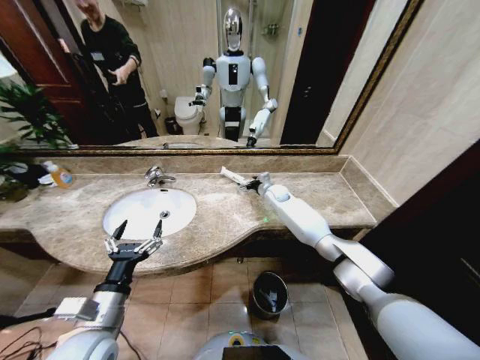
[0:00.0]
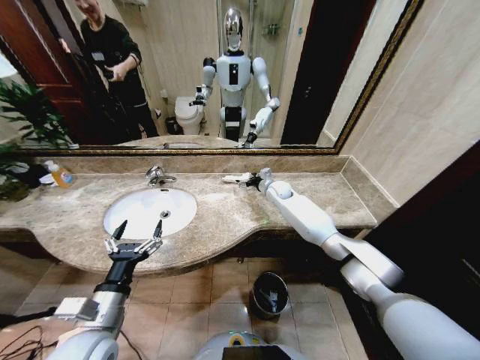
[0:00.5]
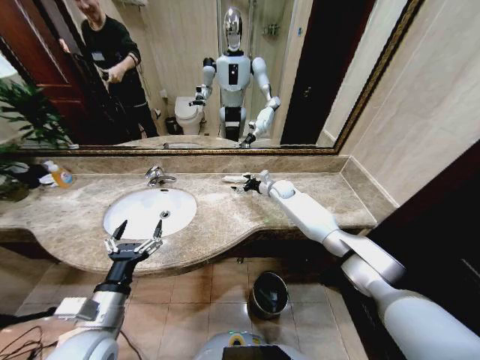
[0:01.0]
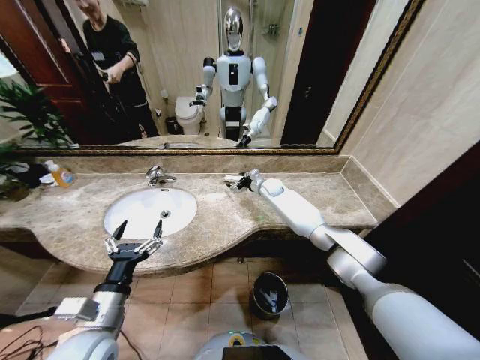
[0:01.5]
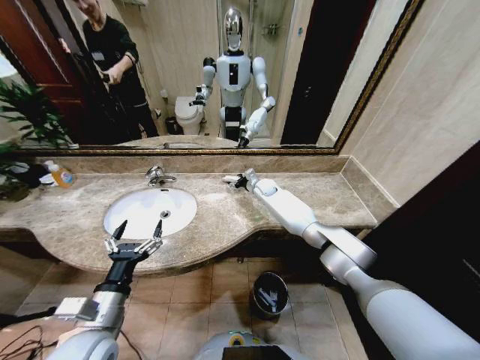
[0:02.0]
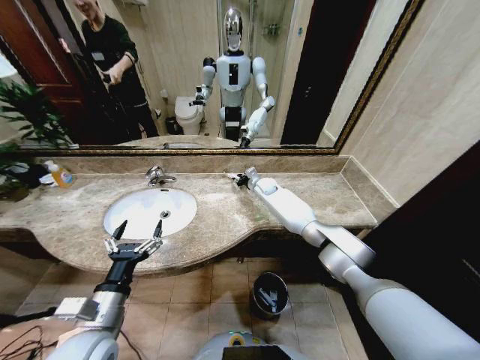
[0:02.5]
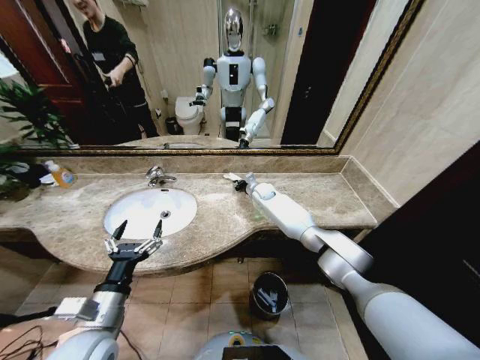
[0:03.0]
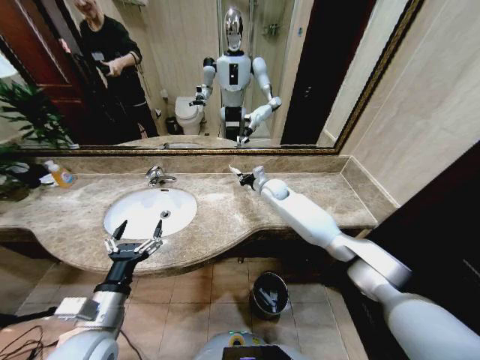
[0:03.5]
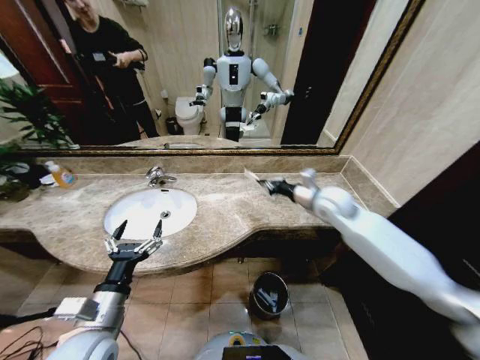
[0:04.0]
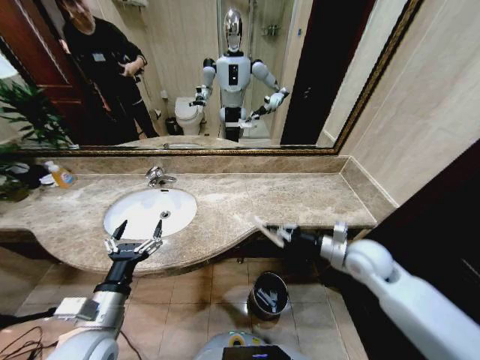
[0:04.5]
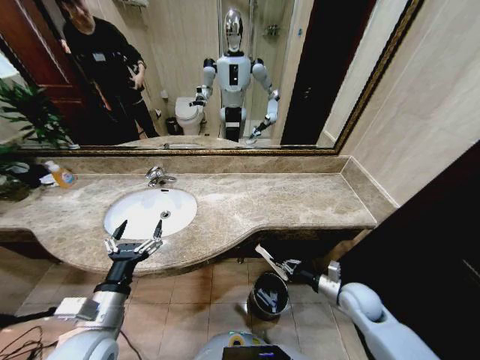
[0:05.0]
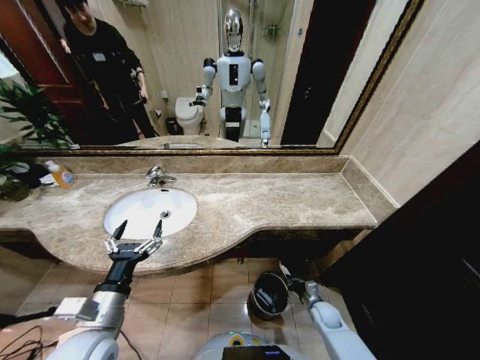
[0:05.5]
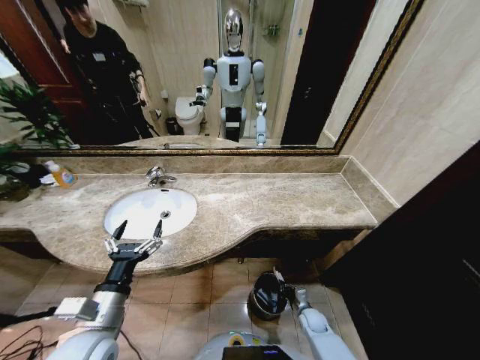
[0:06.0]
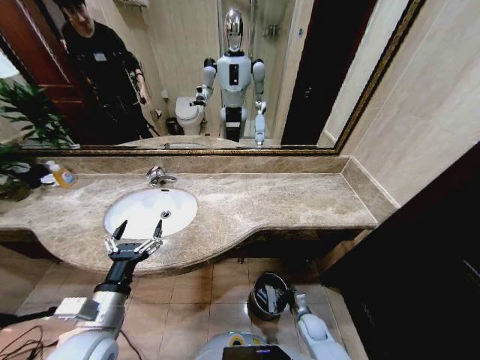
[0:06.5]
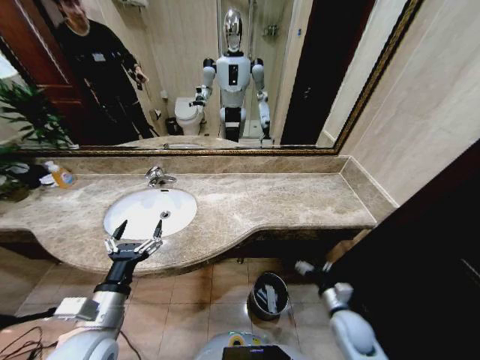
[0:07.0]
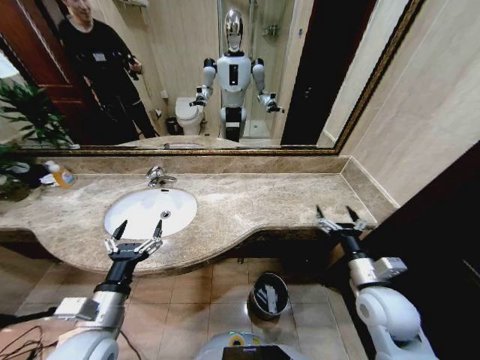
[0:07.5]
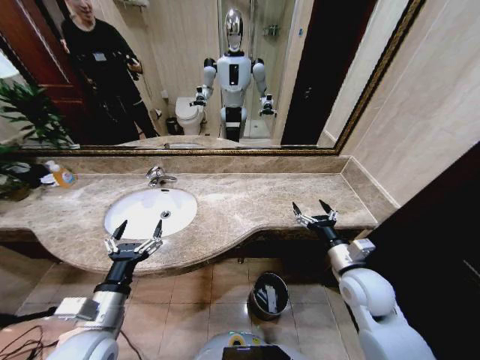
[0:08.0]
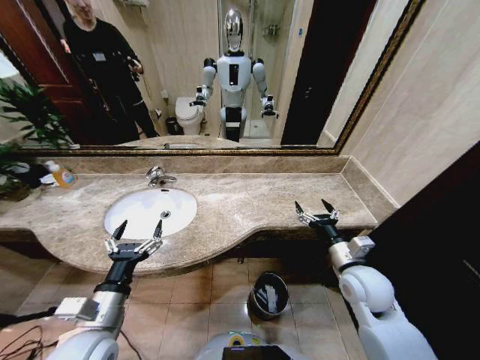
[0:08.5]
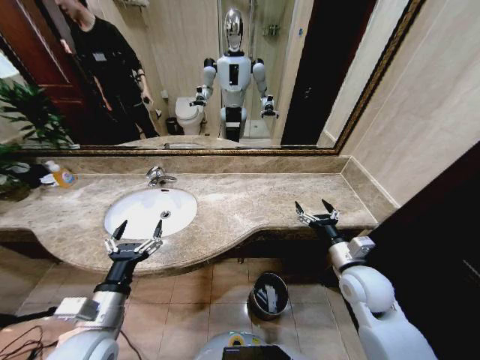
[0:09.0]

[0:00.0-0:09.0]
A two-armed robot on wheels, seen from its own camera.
Task of the whole recording: Pick up the trash from the sink and place it in the trash bin.
0:00.0 to 0:02.0: The right gripper changes place by roughly 5 cm.
0:02.0 to 0:04.5: The right gripper is displaced backward and to the right by approximately 40 cm, and closes its fingers.
0:04.5 to 0:07.0: The right gripper is displaced downward and backward by approximately 20 cm, and opens its fingers.
0:07.0 to 0:09.0: The right gripper heads upward, covering roughly 15 cm.
